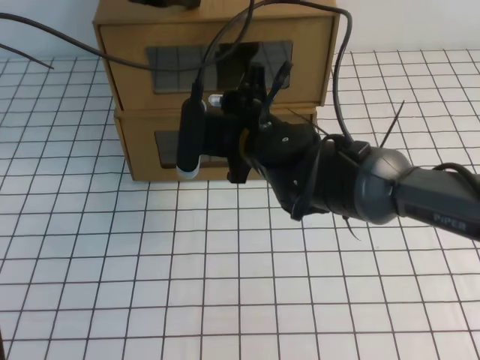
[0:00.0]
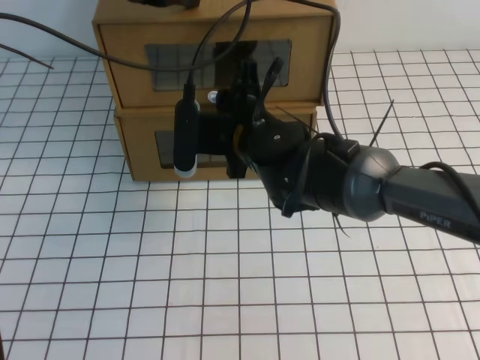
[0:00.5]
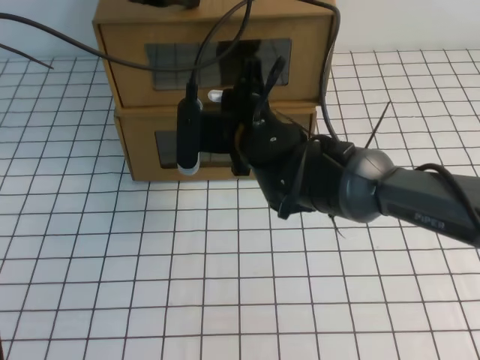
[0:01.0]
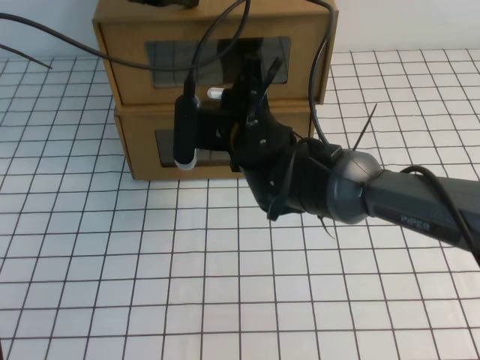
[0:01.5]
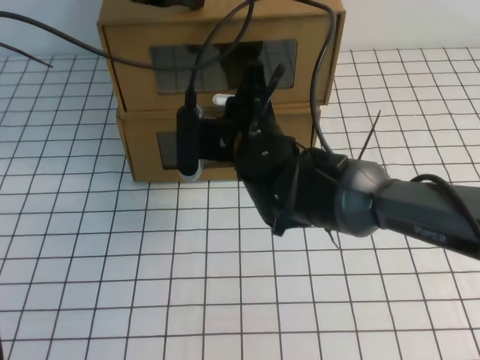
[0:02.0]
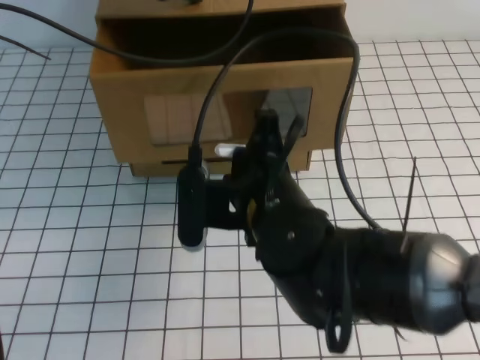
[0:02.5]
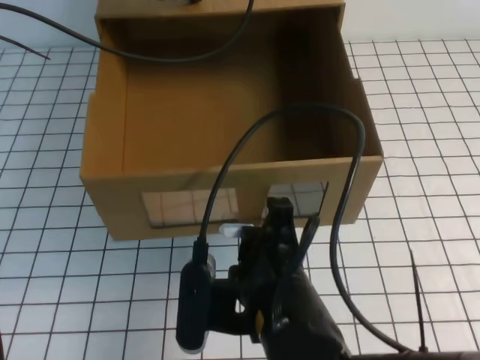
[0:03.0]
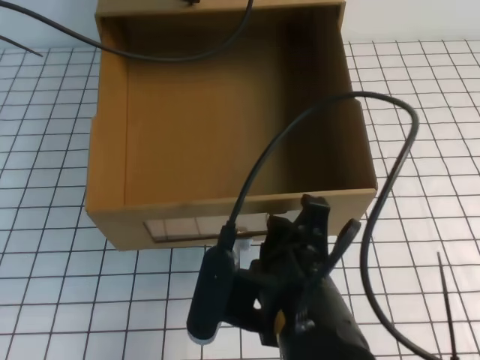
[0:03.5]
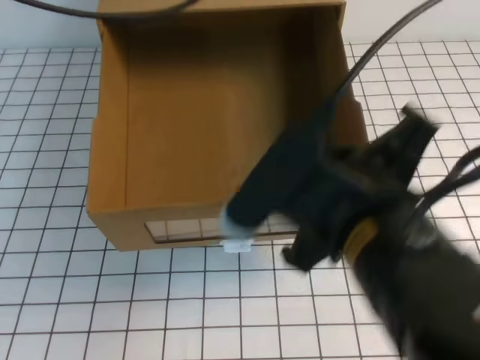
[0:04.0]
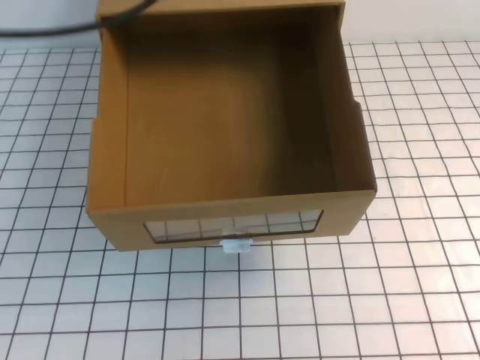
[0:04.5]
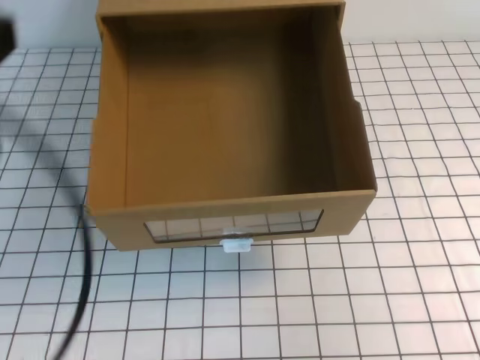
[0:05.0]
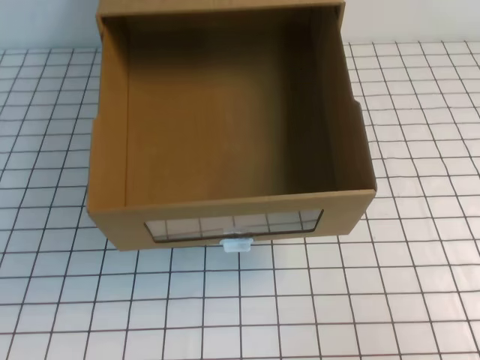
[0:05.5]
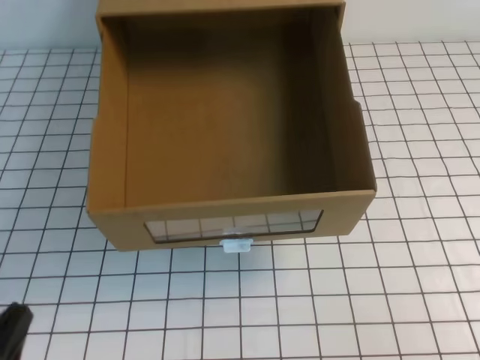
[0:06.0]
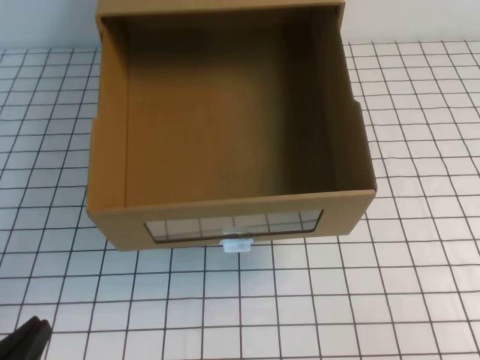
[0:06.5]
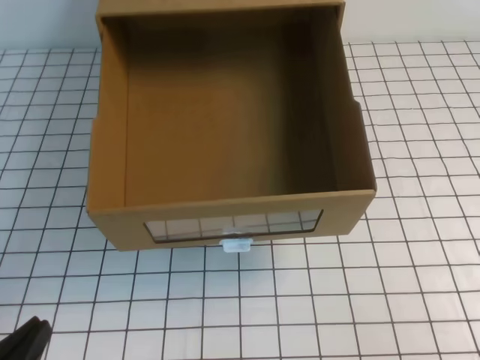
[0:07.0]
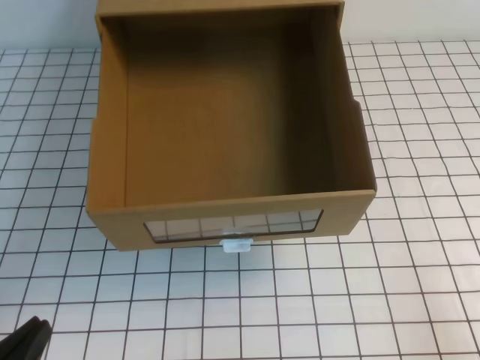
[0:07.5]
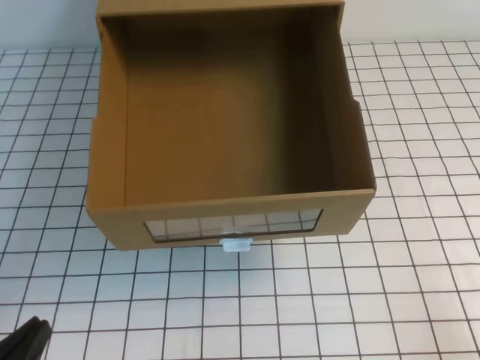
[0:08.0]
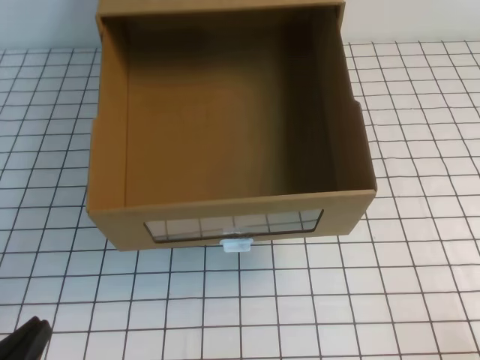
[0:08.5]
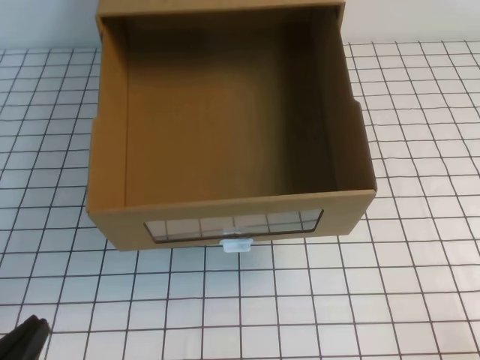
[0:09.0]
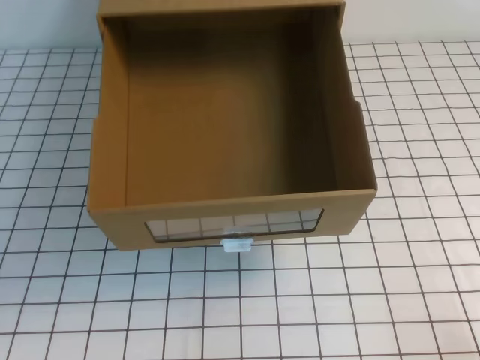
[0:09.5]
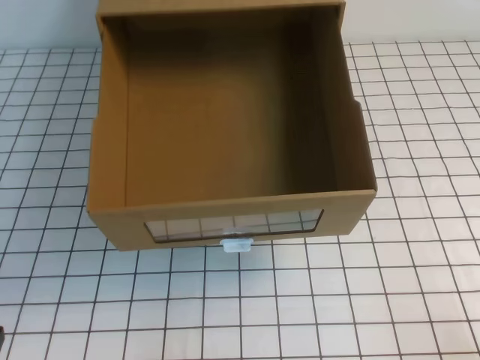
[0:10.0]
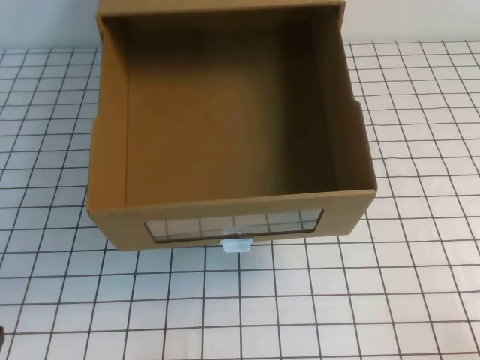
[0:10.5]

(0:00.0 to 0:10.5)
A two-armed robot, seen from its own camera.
Task of the whole recording: open the shoebox on the white tablecloth.
Step, 0:00.0 - 0:10.5: Open the shoe box.
0:00.0 - 0:02.0: The right gripper closes its fingers.
0:02.0 - 0:04.0: The left gripper heads upward and backward, covering approximately 10 cm. Meanwhile the right gripper goes approximately 25 cm backward, upward and to the right, and opens and closes again.
0:04.0 - 0:06.5: The right gripper shifts some 25 cm to the right and backward; the left gripper heads downward and backward, covering some 40 cm.
0:08.5 - 0:10.5: The grippers stay close to where they were, moving slightly.

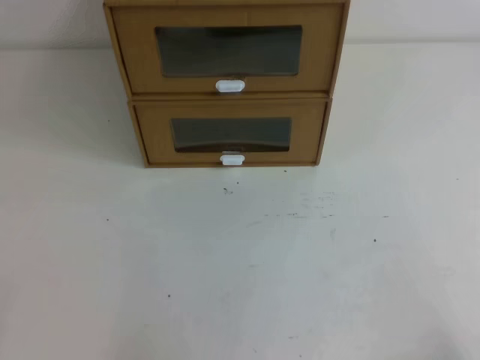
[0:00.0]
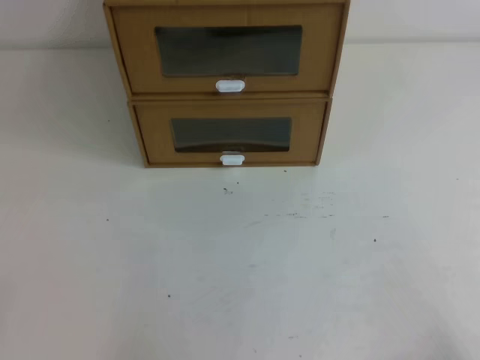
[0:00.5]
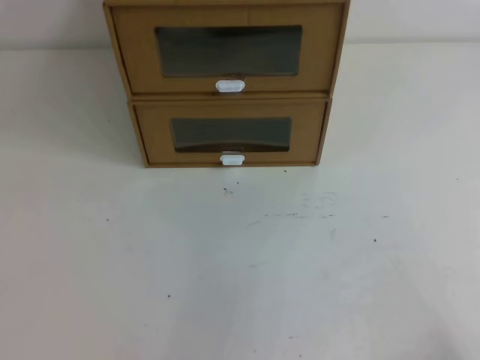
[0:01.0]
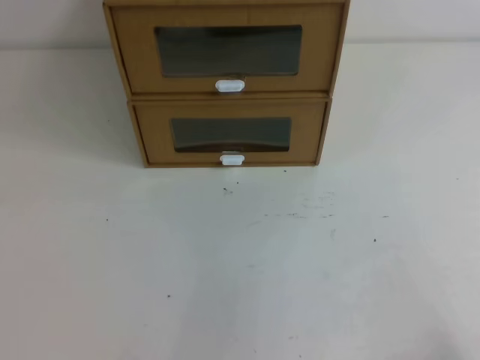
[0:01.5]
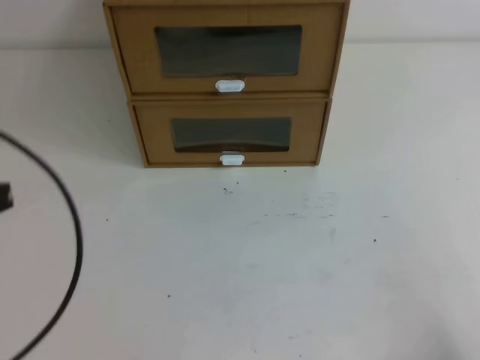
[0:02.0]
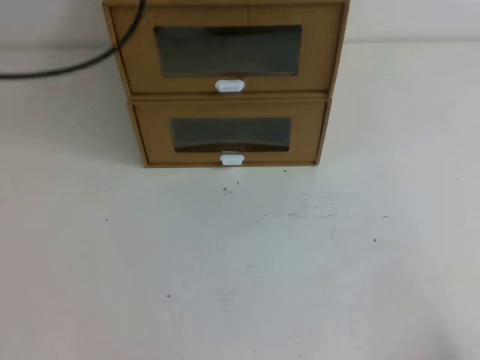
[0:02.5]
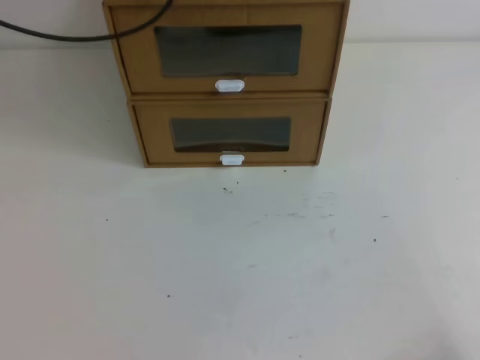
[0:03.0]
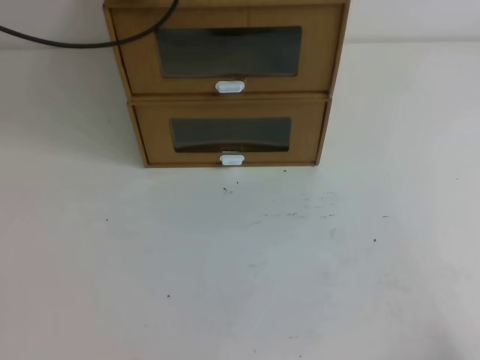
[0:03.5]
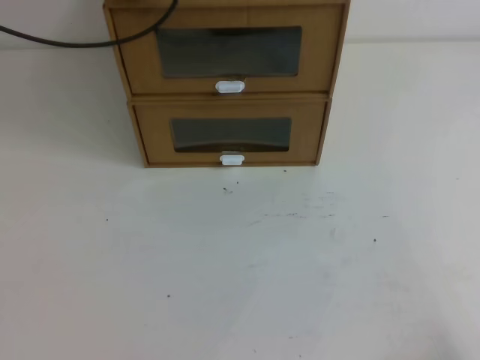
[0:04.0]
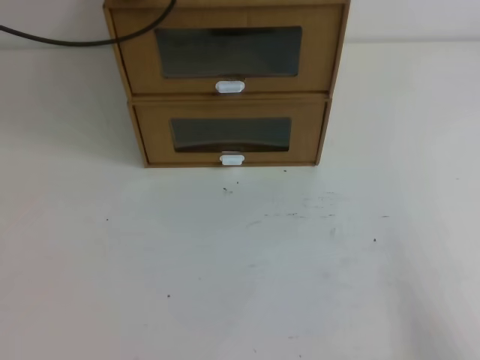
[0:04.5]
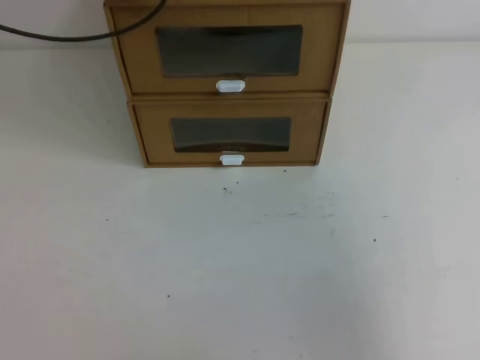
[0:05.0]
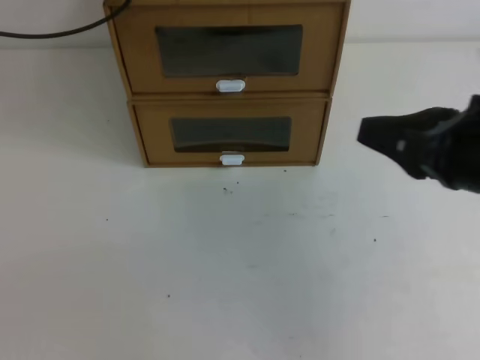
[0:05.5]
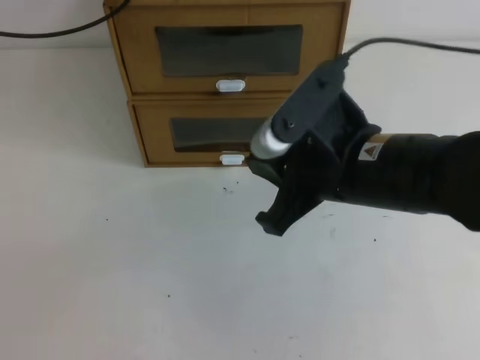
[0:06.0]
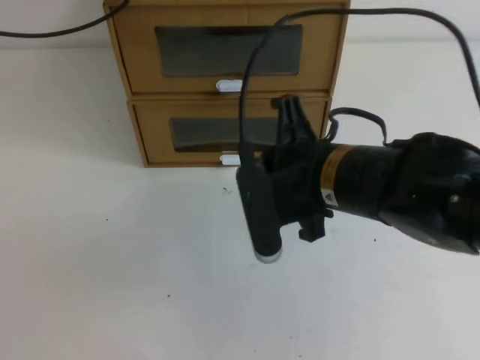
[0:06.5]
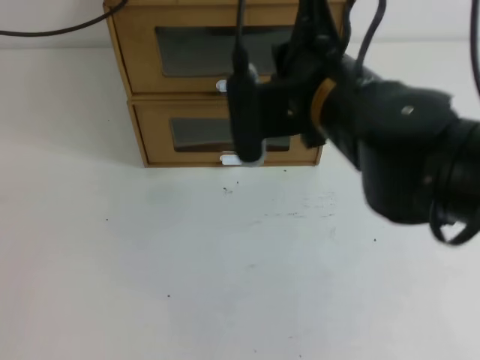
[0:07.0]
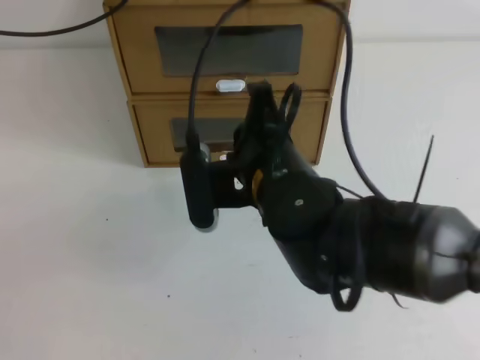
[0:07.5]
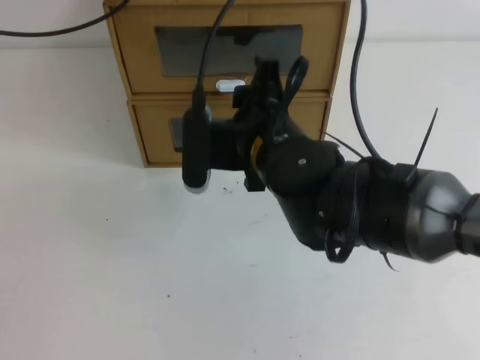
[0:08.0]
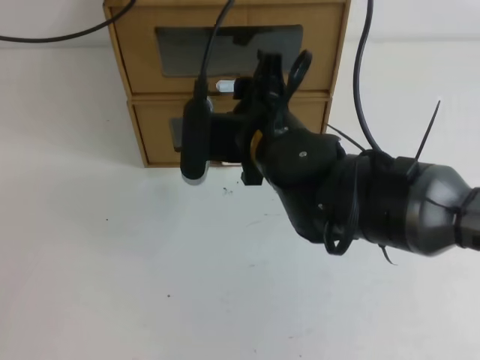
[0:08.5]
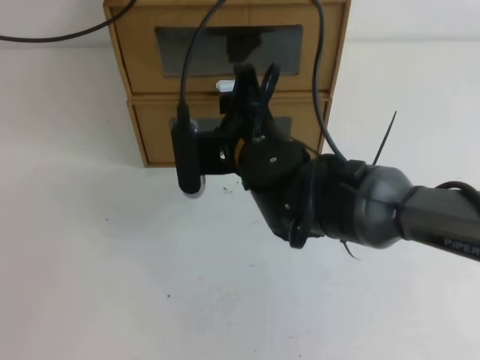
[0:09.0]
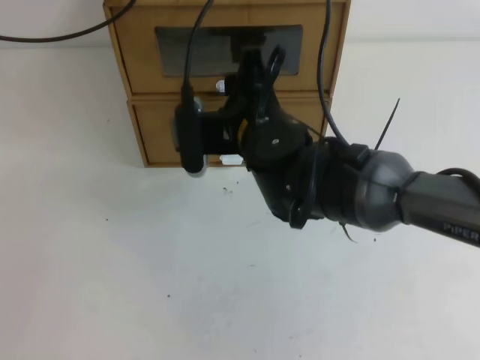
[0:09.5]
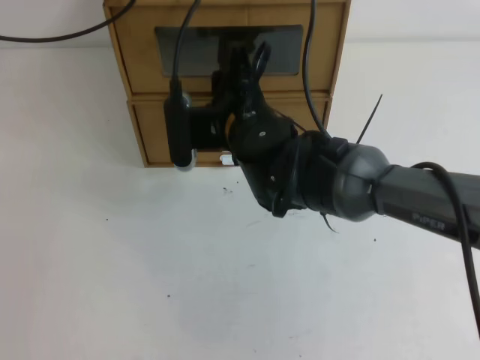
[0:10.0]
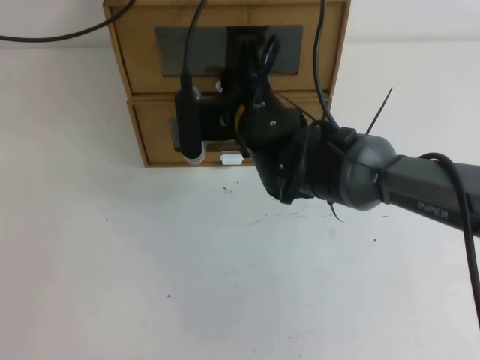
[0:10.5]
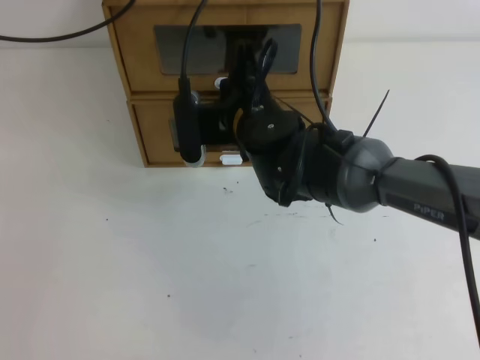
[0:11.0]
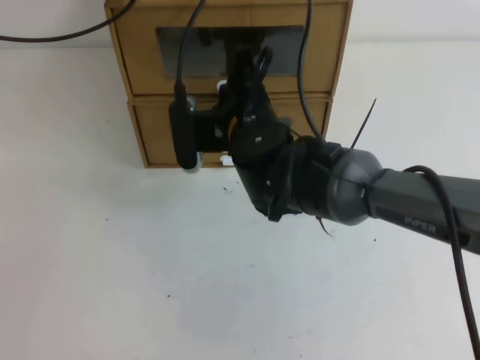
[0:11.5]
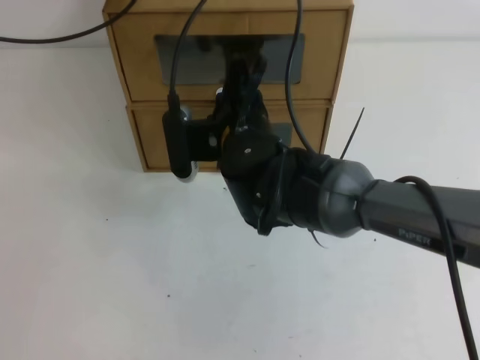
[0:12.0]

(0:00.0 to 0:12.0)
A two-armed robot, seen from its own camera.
Task of the whole recording: open the shoebox on the table.
0:00.0 - 0:02.0: The left gripper goes some 20 cm upward and forward.
0:02.0 - 0:04.0: The left gripper moves forward, about 30 cm.
0:04.0 - 0:06.0: The right gripper heads to the left, forward and upward, covering about 30 cm.
0:06.0 - 0:08.0: The right gripper heads to the left and forward, covering approximately 10 cm, and opens up.
0:08.0 - 0:10.0: The right gripper is displaced forward by roughly 5 cm.
0:10.0 - 0:12.0: The right gripper closes.

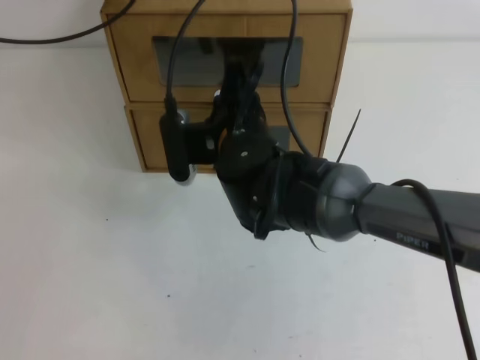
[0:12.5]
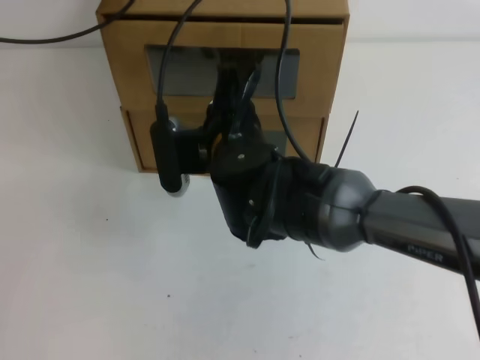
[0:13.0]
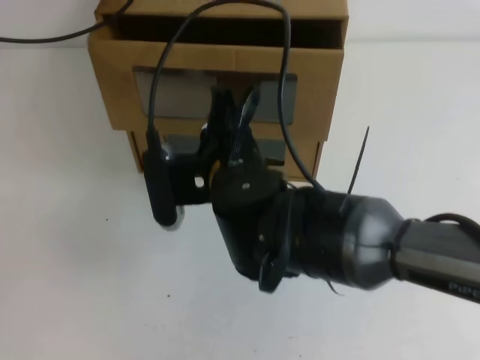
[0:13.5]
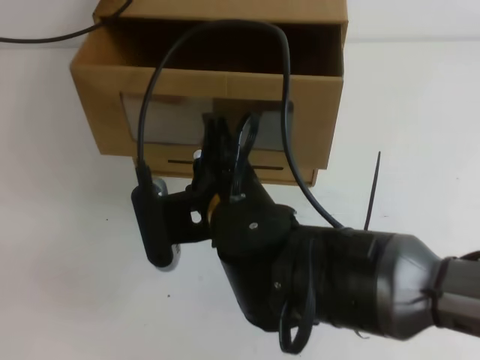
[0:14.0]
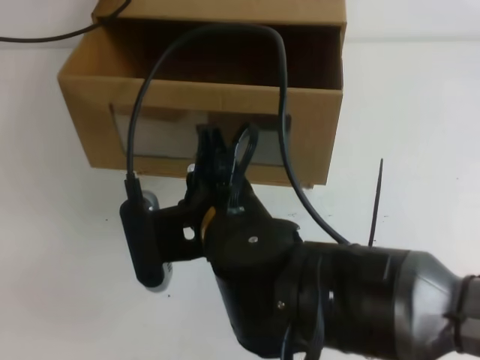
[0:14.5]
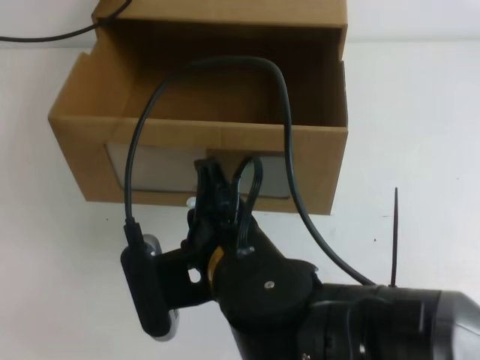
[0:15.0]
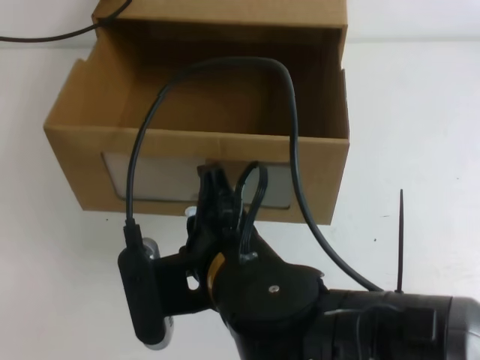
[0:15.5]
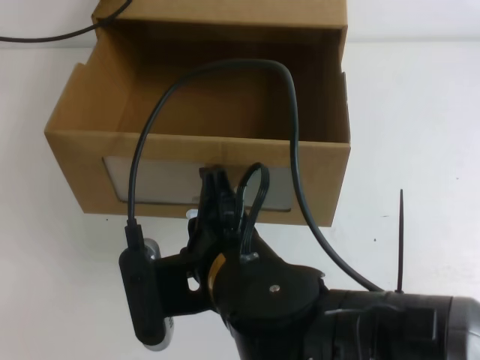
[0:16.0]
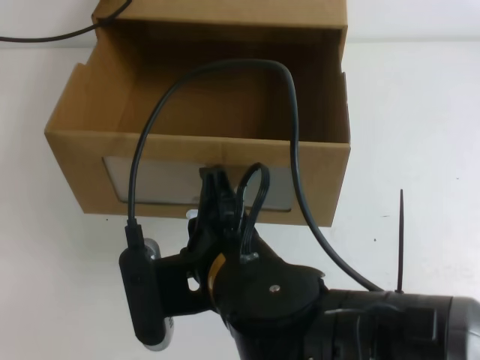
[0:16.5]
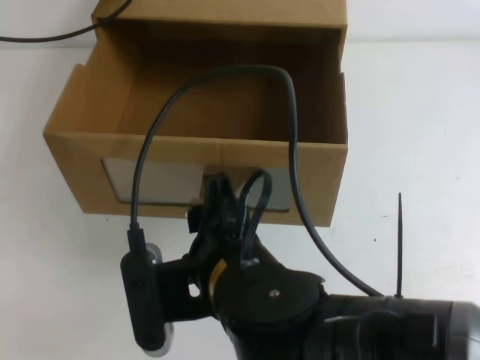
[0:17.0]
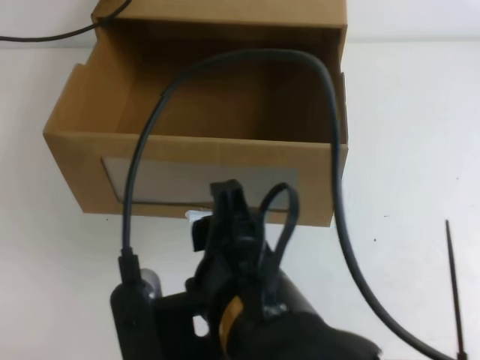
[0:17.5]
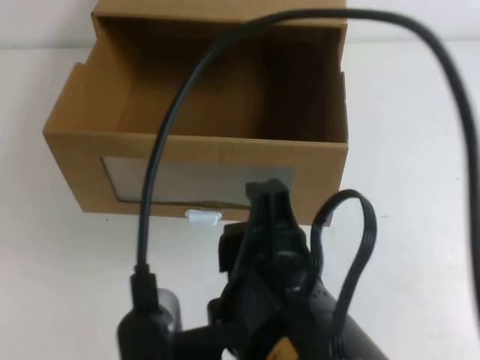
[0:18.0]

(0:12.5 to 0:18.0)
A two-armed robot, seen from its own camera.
Task of the whole recording: open the shoebox on the table.
0:12.5 - 0:14.5: The right gripper travels backward by about 15 cm.
0:16.0 - 0:18.0: The right gripper moves backward and upward, approximately 10 cm, and opens up. Meanwhile the left gripper shifts some 10 cm upward and backward.
